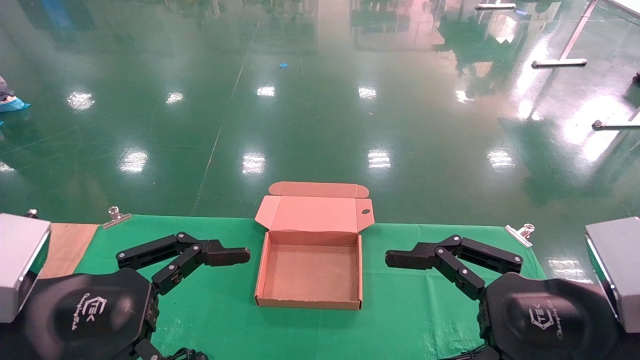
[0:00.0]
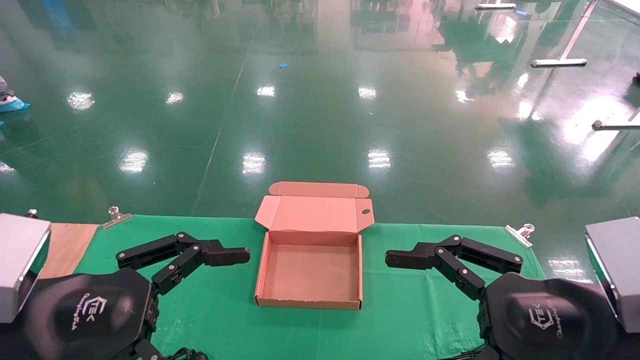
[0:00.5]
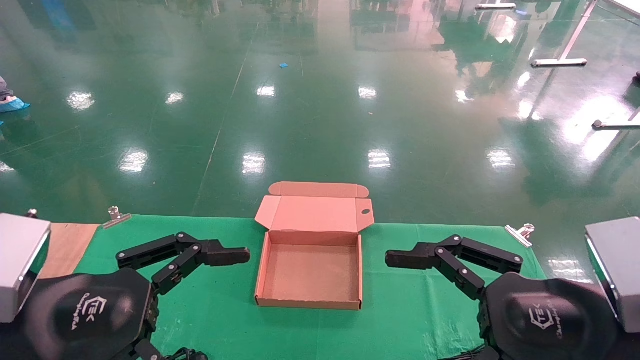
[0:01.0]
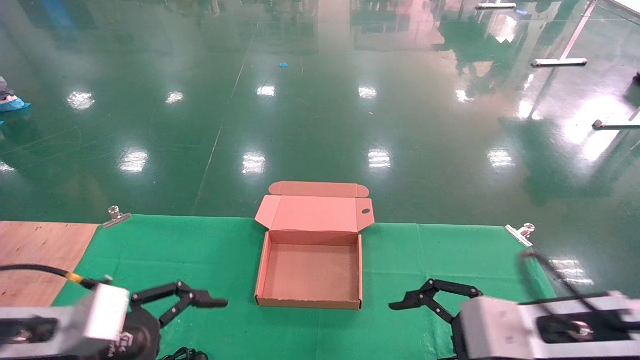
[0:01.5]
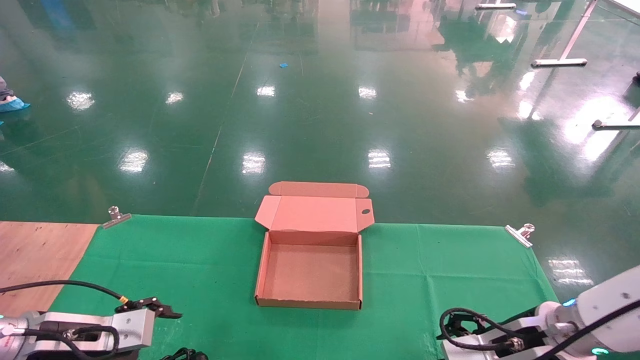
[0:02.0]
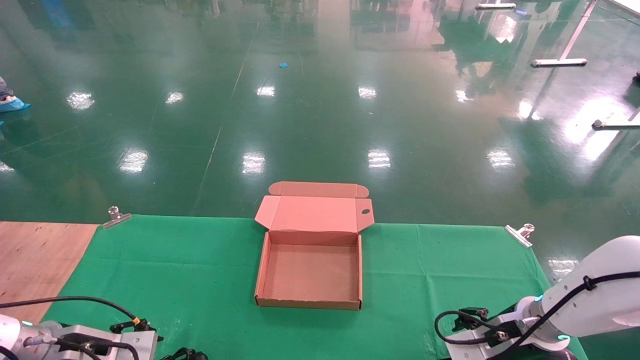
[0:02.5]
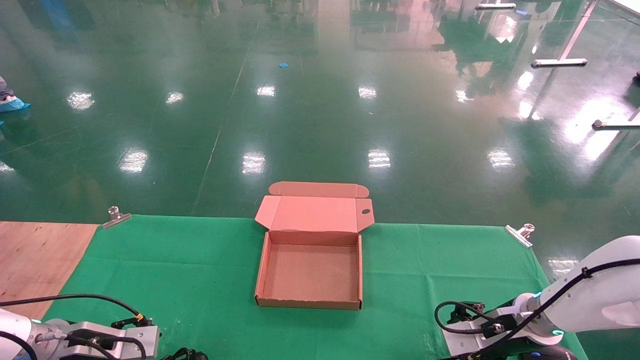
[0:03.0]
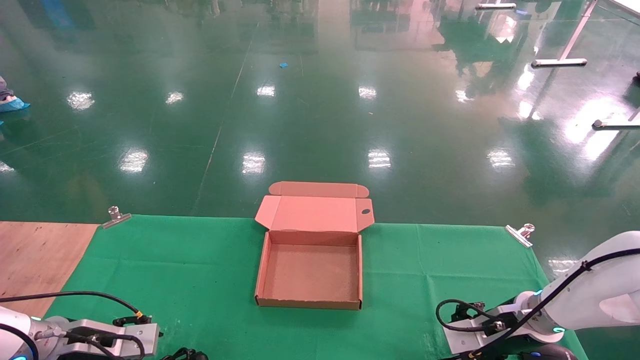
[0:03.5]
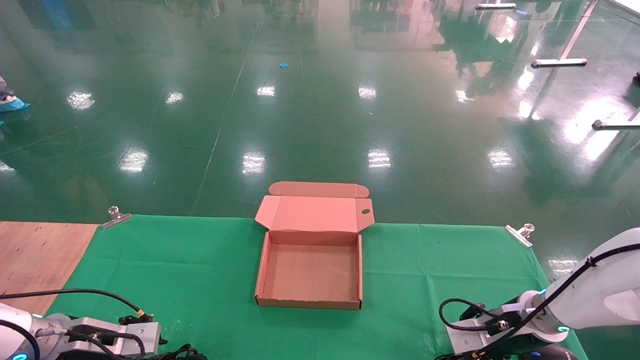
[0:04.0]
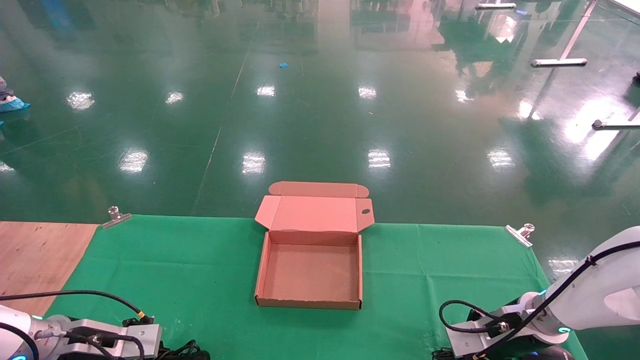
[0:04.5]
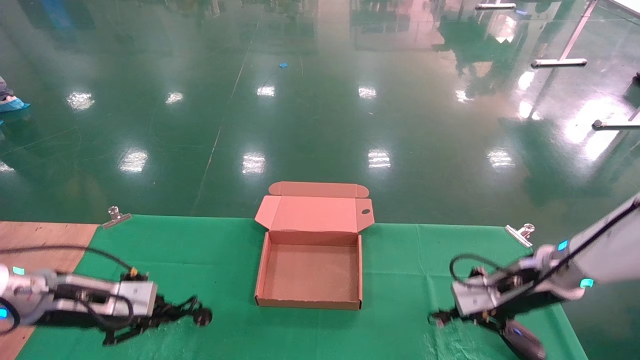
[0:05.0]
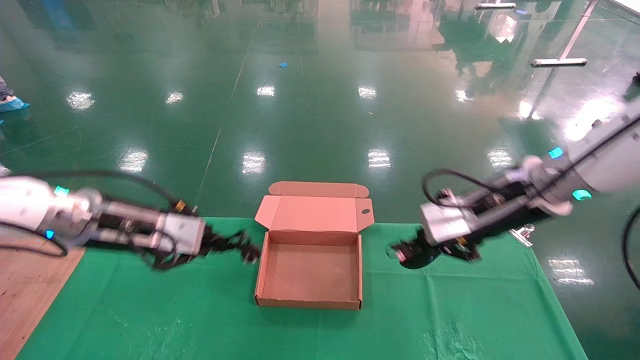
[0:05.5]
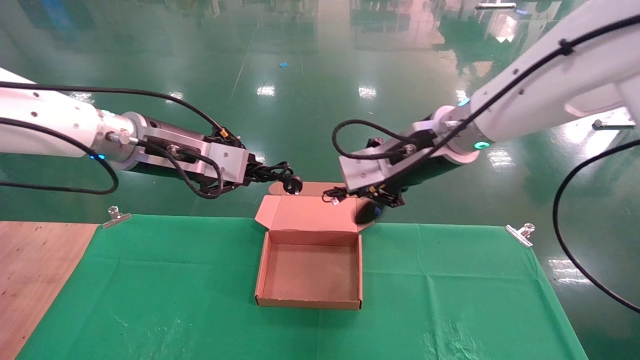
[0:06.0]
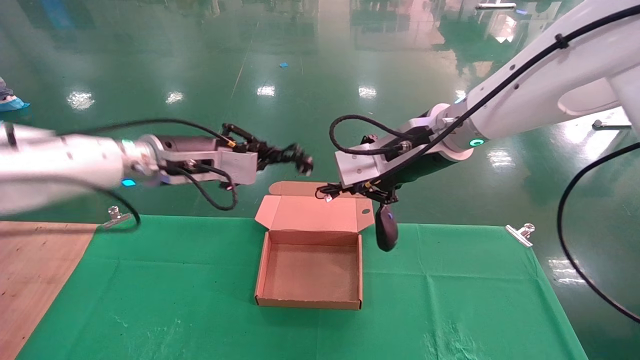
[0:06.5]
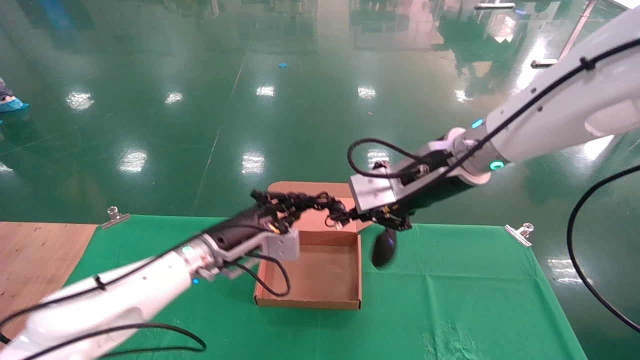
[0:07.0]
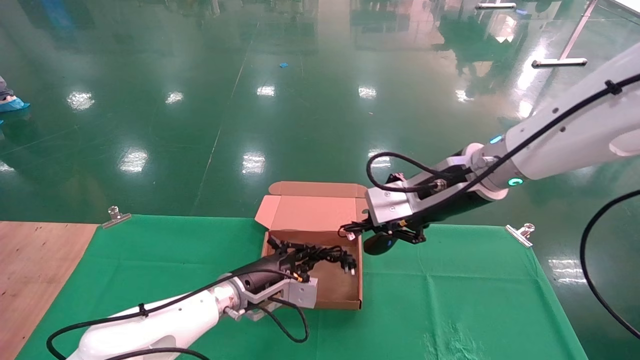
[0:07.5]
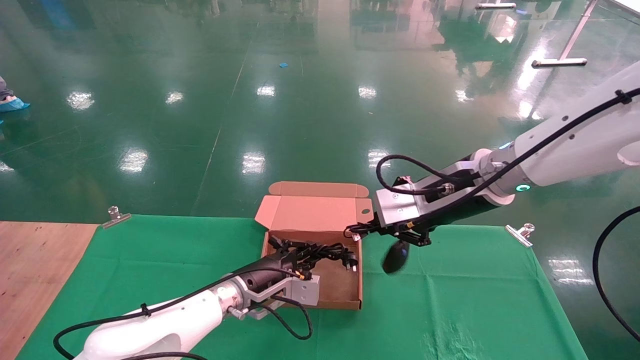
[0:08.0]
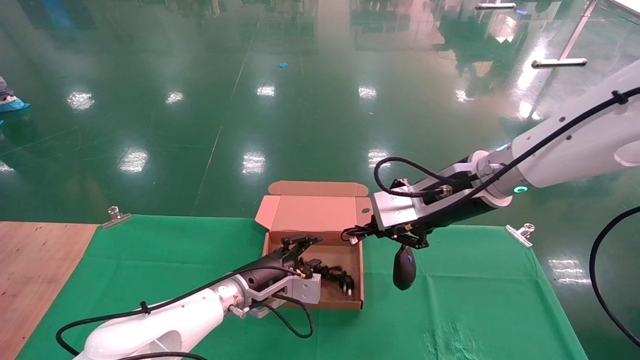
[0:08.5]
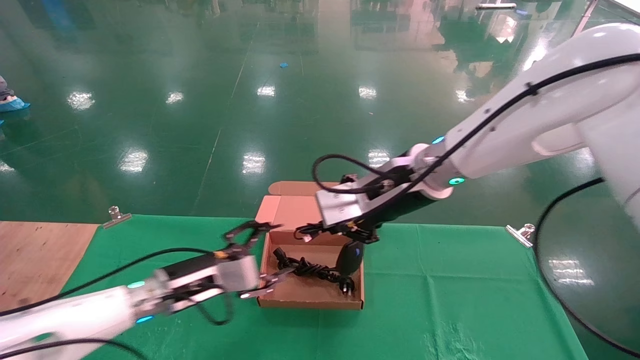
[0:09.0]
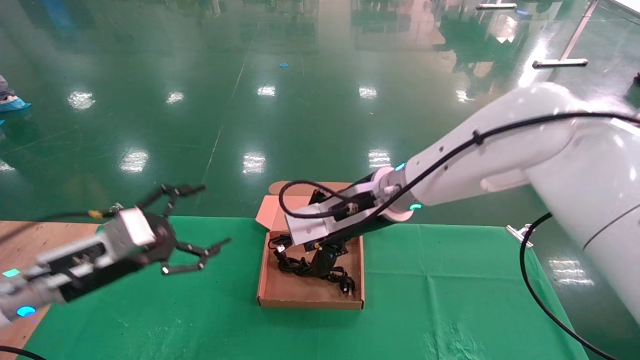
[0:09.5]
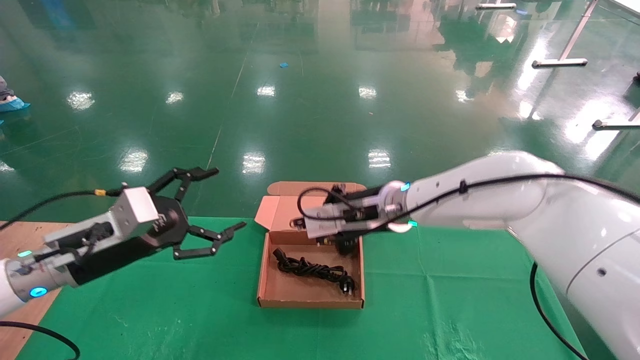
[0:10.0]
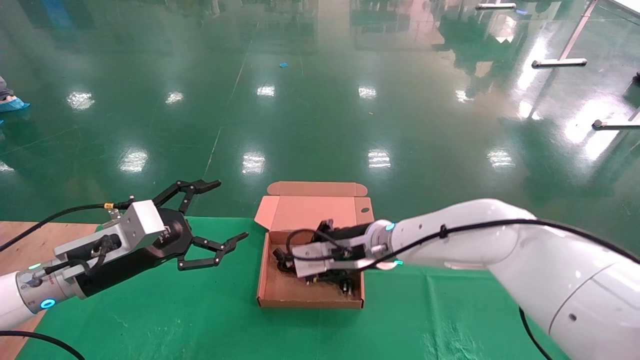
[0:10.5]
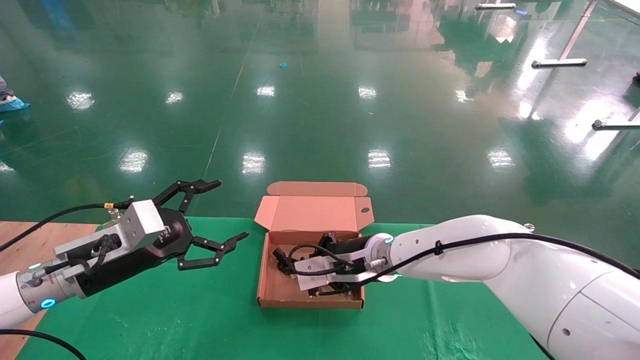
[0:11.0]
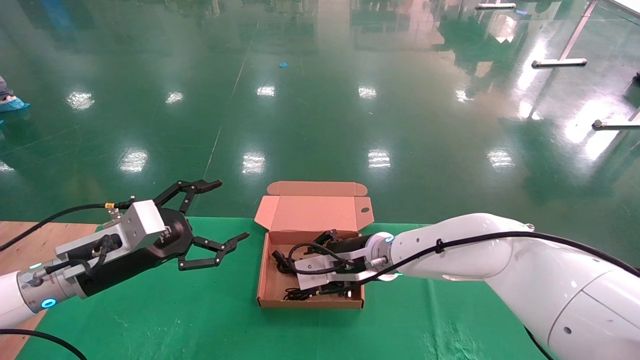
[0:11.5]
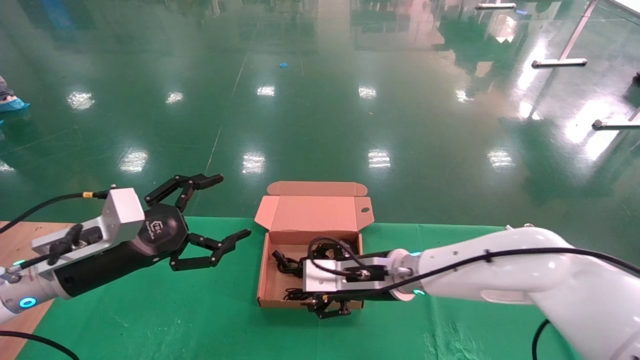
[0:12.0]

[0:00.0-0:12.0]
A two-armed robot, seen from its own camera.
Step, 0:03.0 to 0:07.0: Grab and lift both the mouse and power cord from the accessory packaging area at the same time.
0:00.0 to 0:02.0: The left gripper heads forward, downward and to the left, covering some 20 cm; the right gripper heads forward and downward, covering approximately 20 cm.
0:02.0 to 0:04.0: The right gripper moves forward, about 10 cm, and closes its fingers, while the left gripper goes approximately 5 cm forward and downward, and closes up.
0:04.0 to 0:06.0: The right gripper goes approximately 30 cm upward and to the left, and closes its fingers. Meanwhile the left gripper goes about 30 cm upward and to the right, and closes.
0:06.0 to 0:08.0: The left gripper is displaced downward by roughly 25 cm. Meanwhile the right gripper shifts by roughly 5 cm.
0:08.0 to 0:10.0: The right gripper shifts some 15 cm to the left, downward and forward. The left gripper shifts some 25 cm to the left, upward and backward, and opens its fingers.
0:10.0 to 0:12.0: The right gripper goes about 10 cm downward, and opens its fingers.

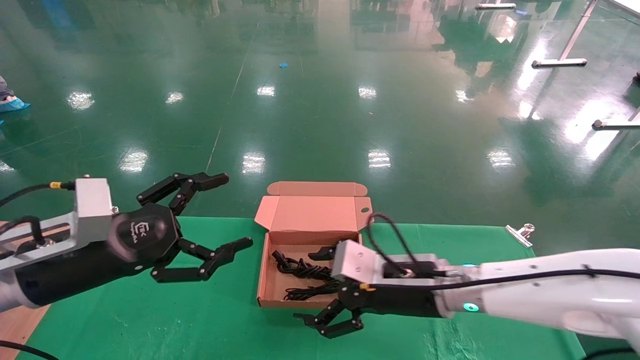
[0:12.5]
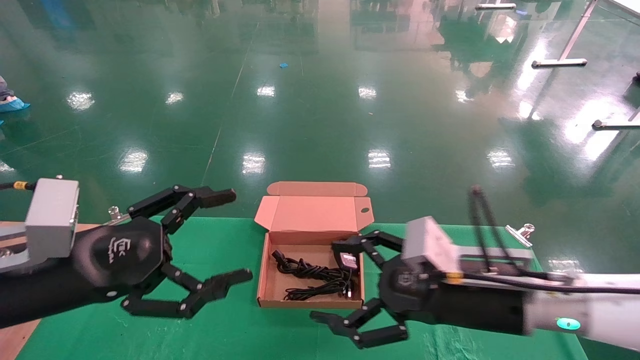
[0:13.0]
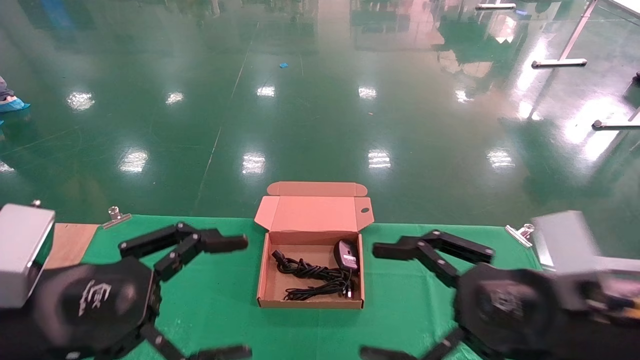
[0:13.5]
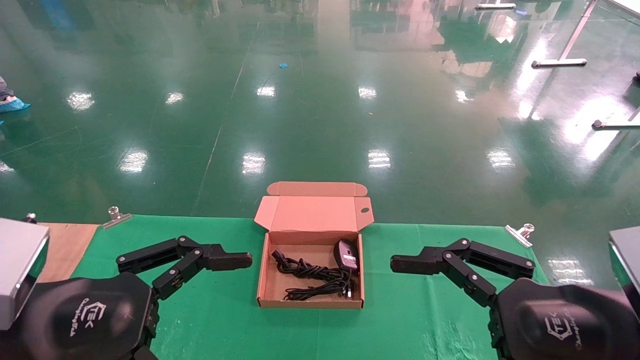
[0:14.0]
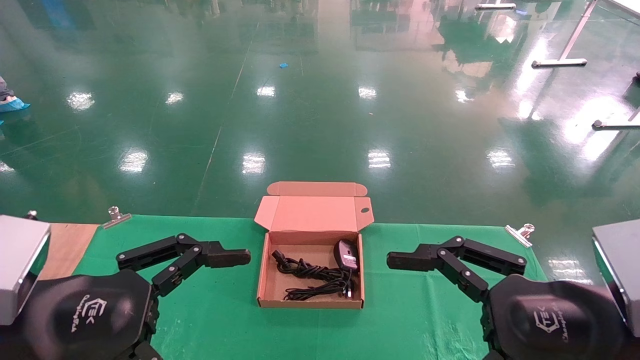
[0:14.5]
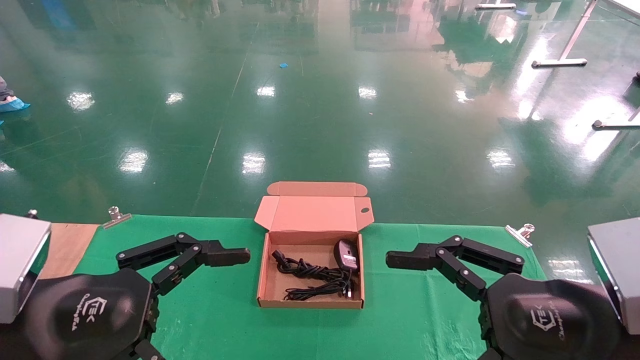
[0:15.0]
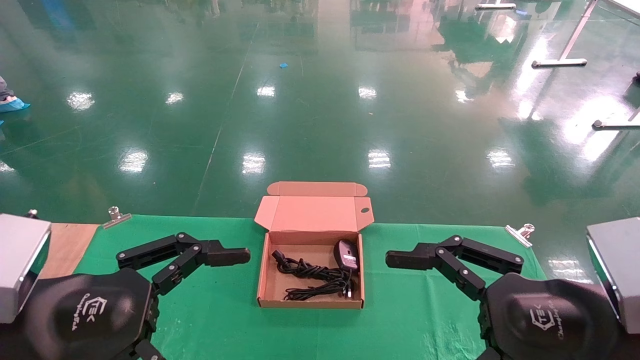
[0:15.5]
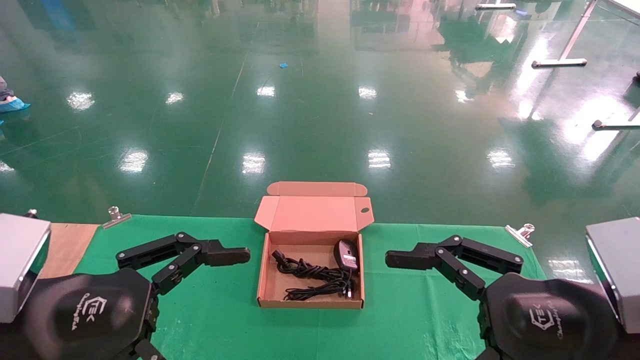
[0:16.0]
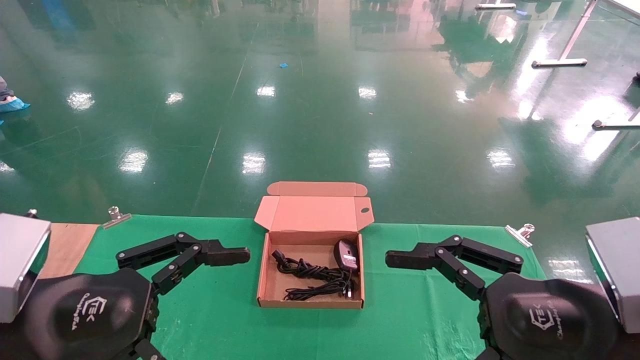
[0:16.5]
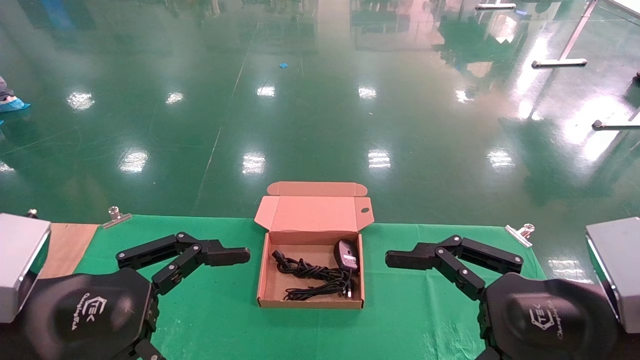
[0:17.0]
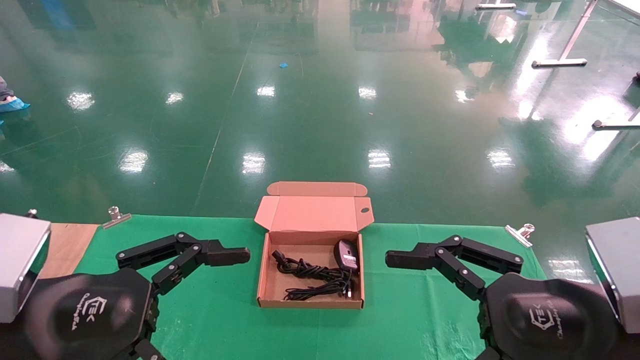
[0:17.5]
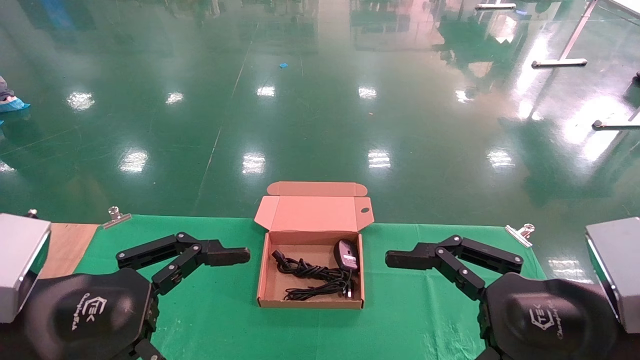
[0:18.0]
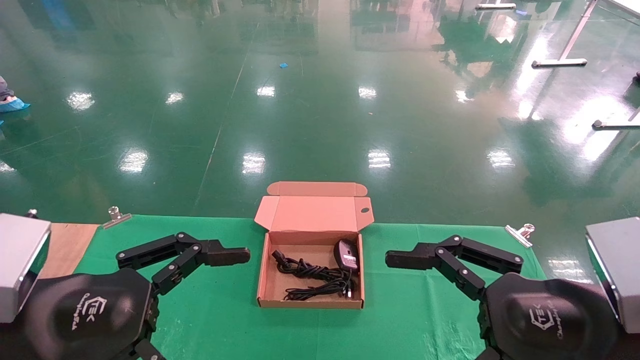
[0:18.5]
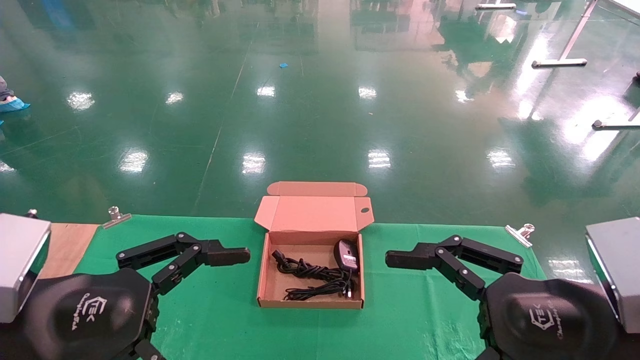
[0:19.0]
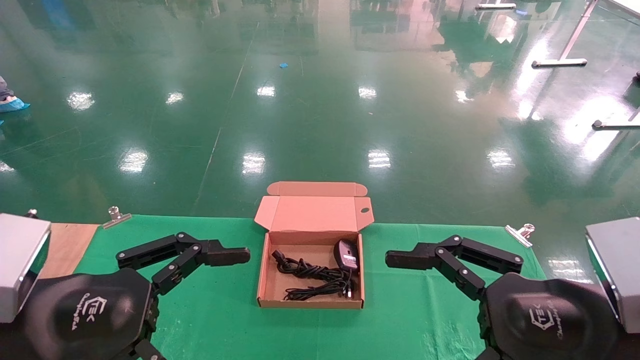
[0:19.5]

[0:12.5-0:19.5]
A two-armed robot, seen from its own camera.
0:12.5 to 0:14.5: The right gripper travels backward, to the right and upward by about 25 cm, while the left gripper travels backward by some 10 cm.
0:14.5 to 0:19.5: Both grippers stay put.
